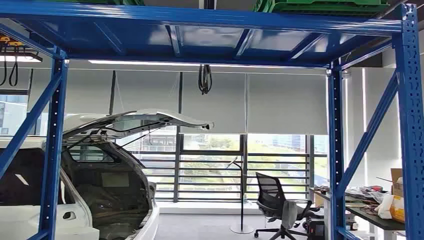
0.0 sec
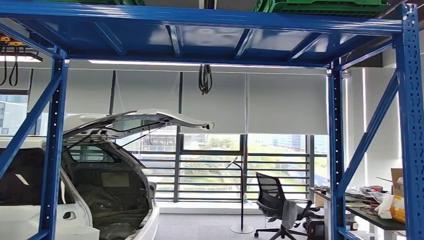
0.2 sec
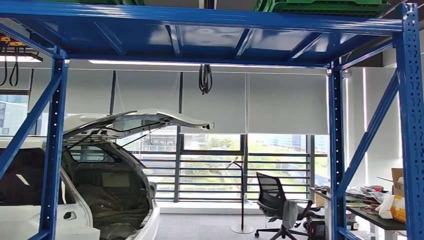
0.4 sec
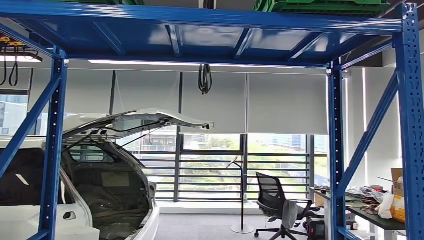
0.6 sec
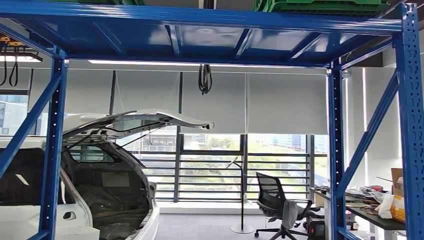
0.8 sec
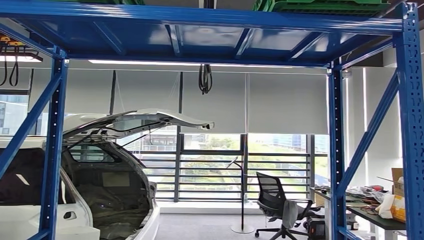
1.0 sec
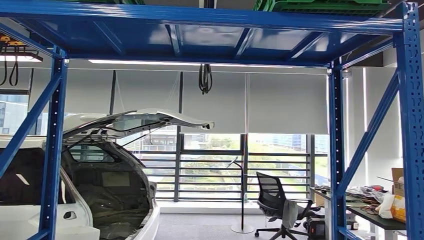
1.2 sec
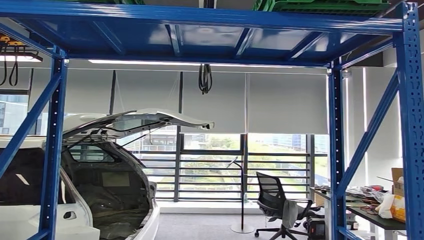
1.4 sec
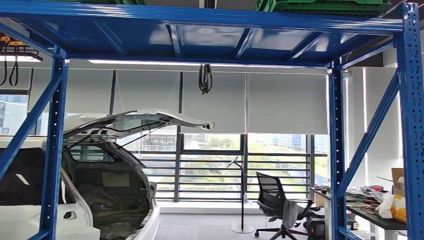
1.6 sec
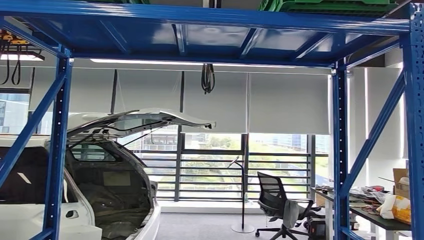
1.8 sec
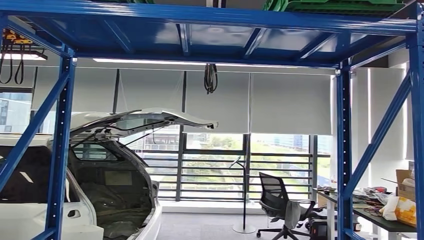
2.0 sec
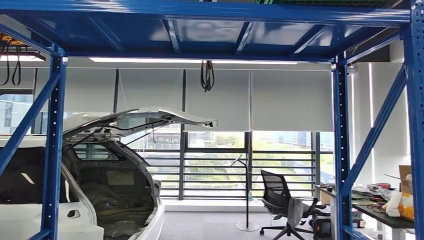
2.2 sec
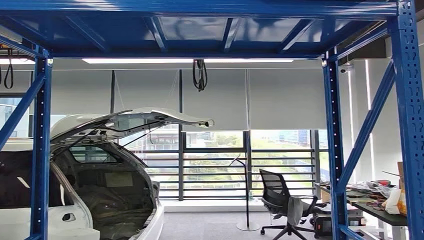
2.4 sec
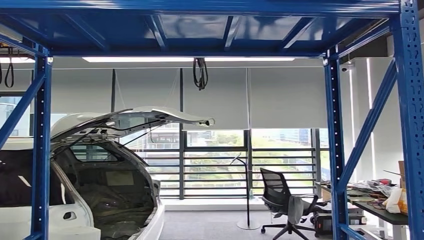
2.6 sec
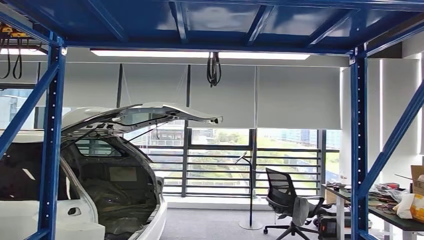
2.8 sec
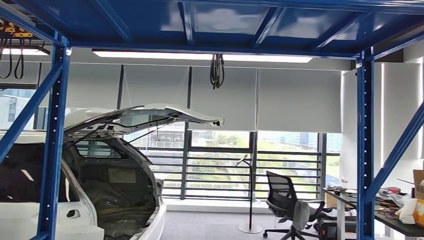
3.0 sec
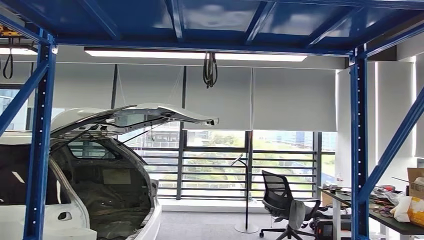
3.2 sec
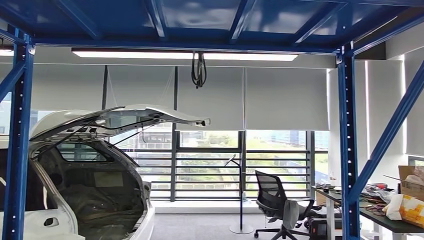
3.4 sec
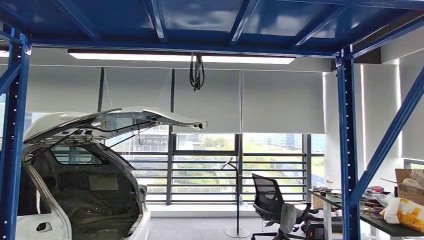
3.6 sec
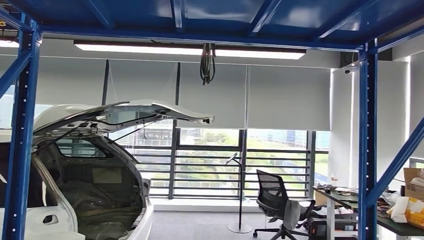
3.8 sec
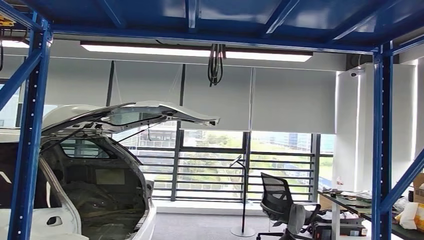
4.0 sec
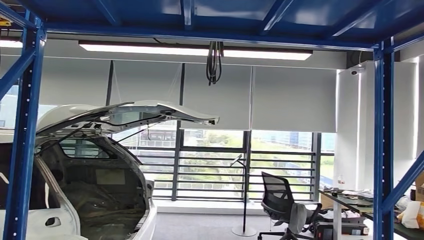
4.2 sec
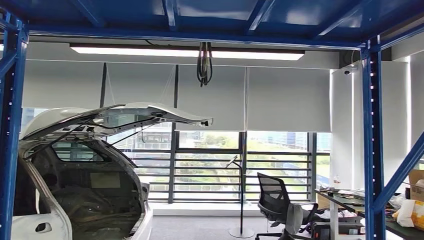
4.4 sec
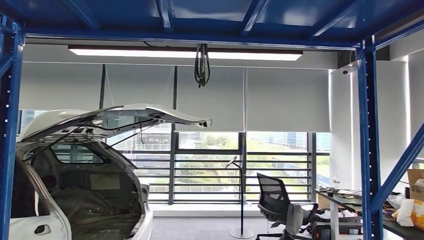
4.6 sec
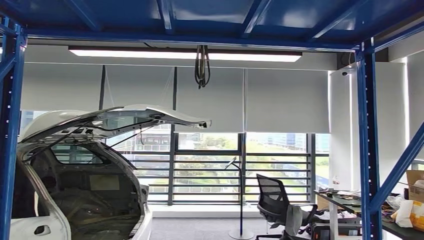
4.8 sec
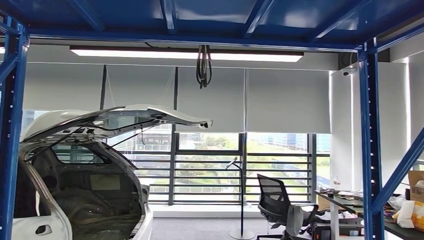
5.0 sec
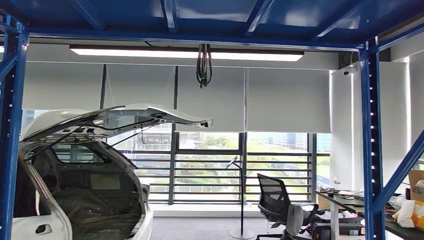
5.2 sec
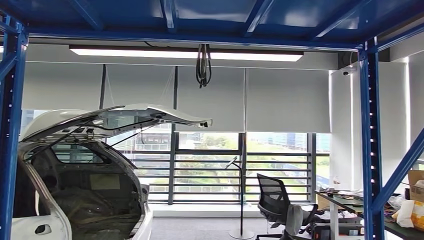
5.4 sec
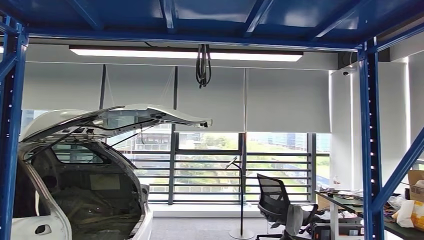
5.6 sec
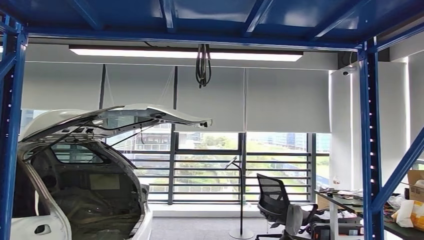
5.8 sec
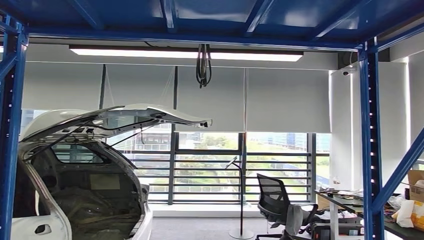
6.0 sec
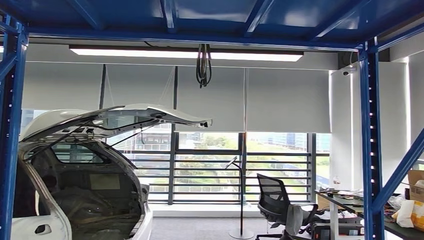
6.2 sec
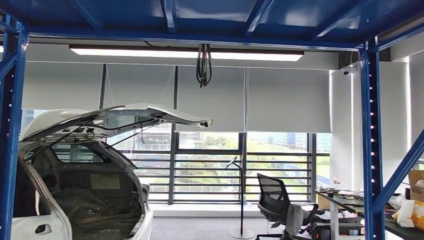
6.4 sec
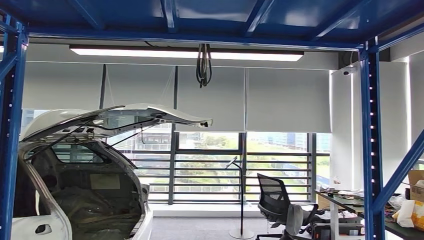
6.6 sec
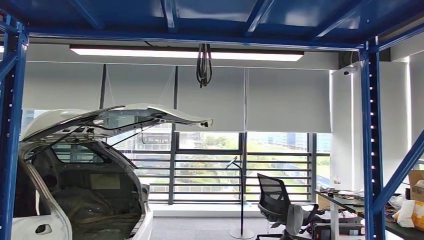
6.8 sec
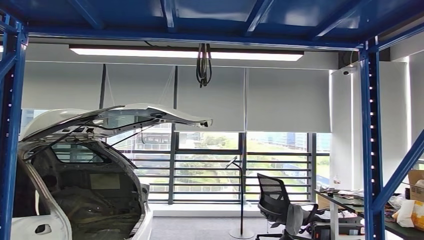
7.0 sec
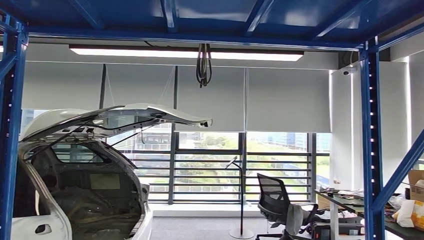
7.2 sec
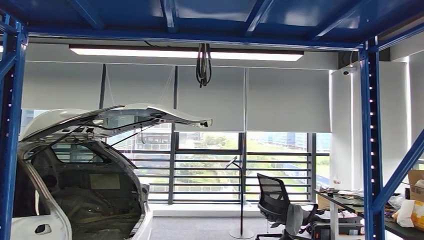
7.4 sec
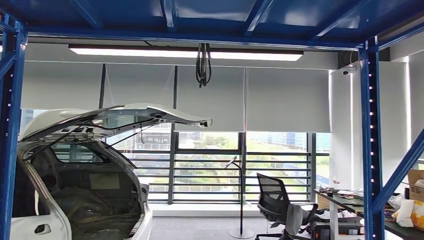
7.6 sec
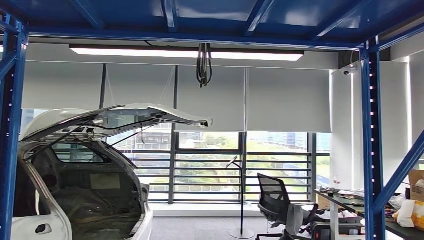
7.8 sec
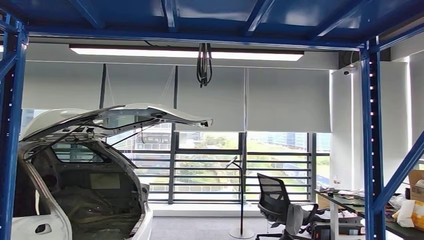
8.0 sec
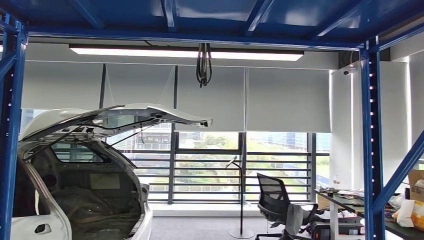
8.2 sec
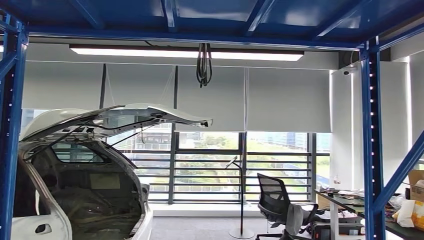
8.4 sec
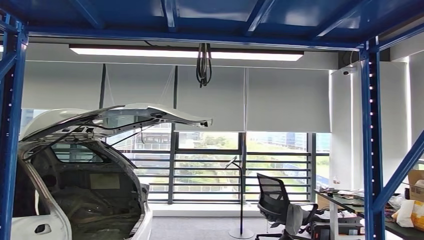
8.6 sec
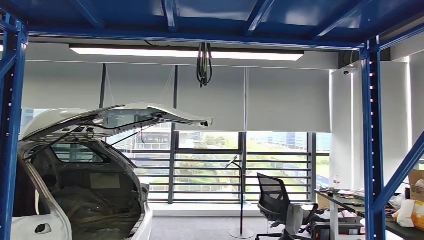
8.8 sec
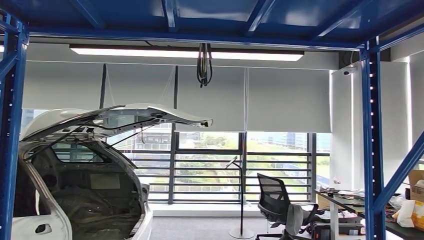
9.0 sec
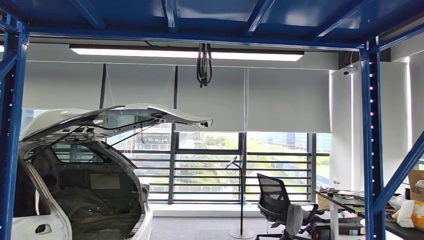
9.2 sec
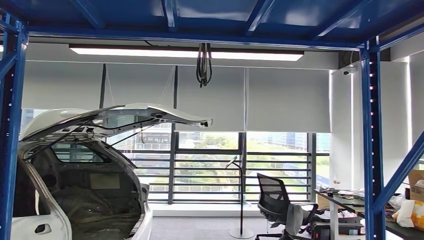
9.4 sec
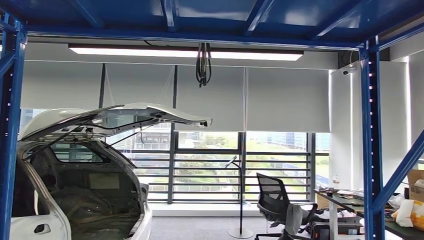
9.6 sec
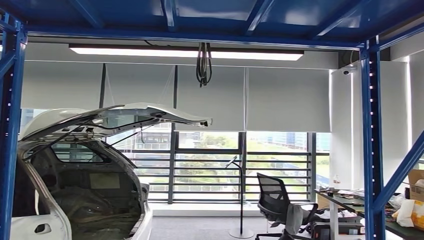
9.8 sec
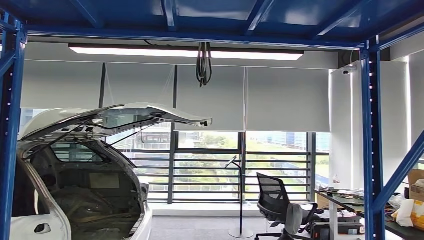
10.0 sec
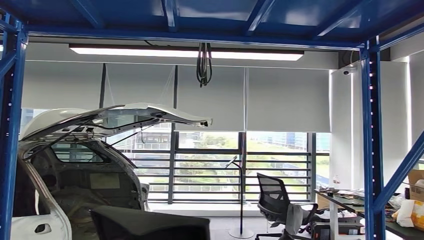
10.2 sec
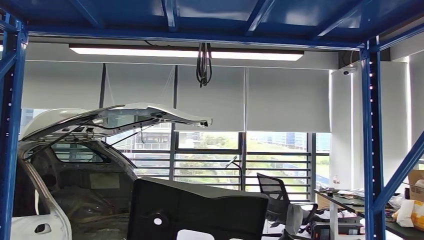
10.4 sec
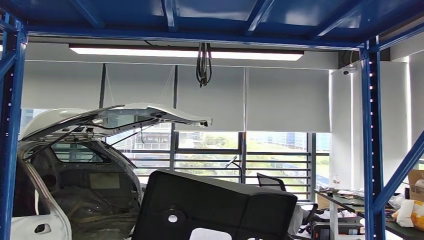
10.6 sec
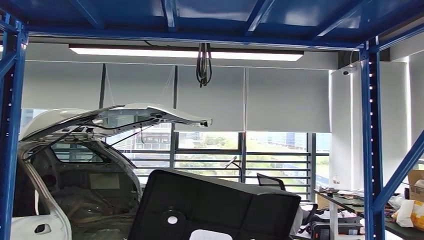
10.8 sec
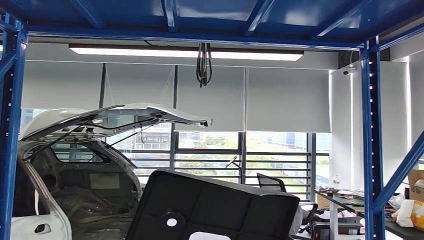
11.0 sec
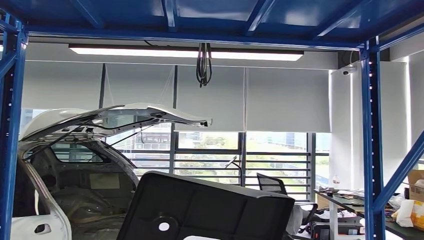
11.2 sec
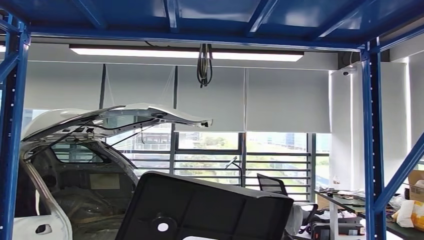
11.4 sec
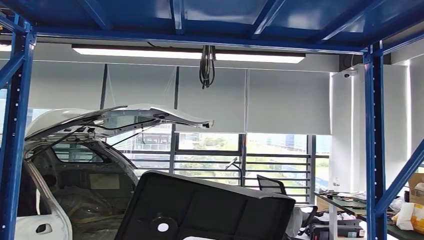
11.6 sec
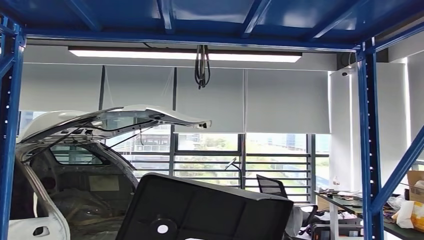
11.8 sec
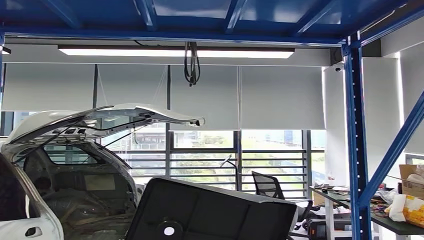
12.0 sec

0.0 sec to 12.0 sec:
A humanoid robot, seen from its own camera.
Step, 0.0 sec to 9.4 sec: Pick up the small parts from the shelf.
6.0 sec to 7.6 sec: The right hand heads forward and to the left, covering some 10 cm.
7.6 sec to 9.0 sec: The right hand moves to the left, approximately 10 cm.
9.0 sec to 10.4 sec: The right hand goes some 15 cm upward and backward.

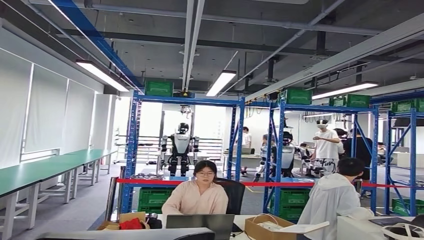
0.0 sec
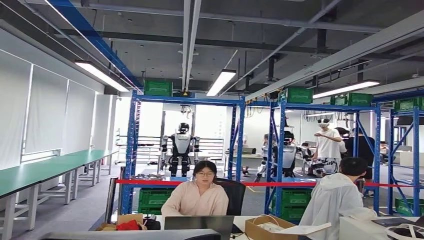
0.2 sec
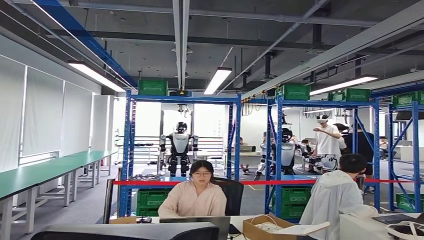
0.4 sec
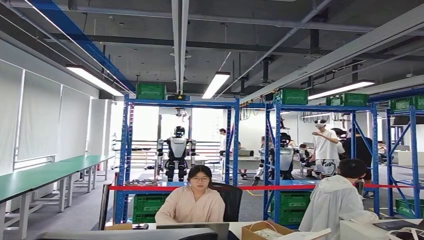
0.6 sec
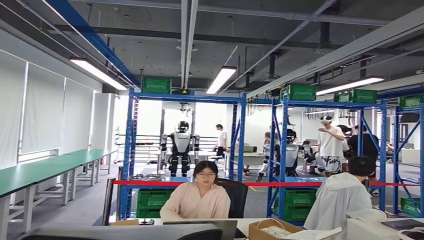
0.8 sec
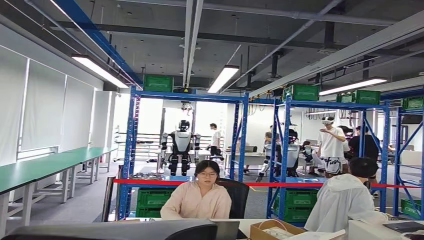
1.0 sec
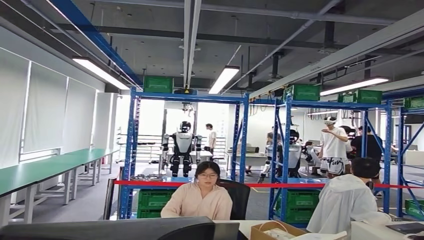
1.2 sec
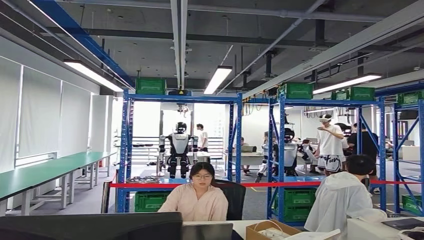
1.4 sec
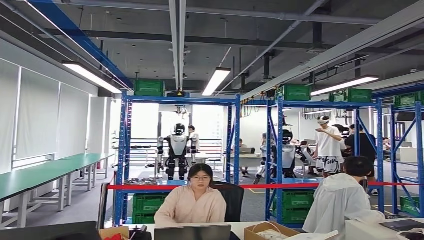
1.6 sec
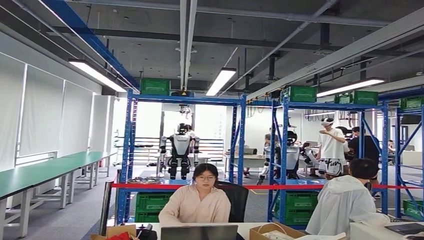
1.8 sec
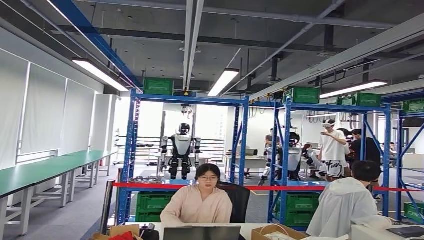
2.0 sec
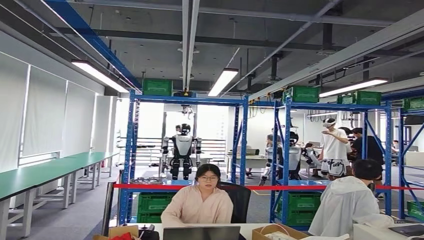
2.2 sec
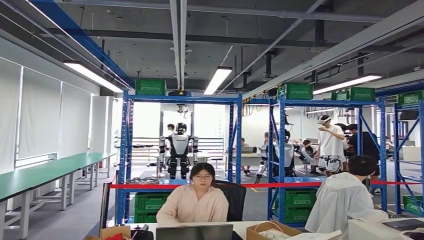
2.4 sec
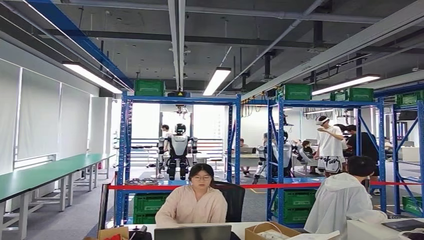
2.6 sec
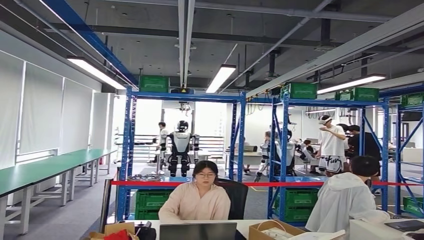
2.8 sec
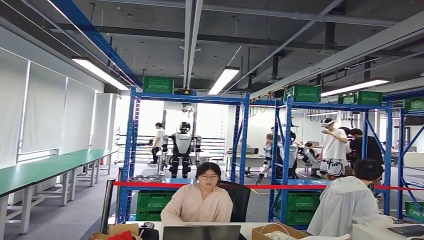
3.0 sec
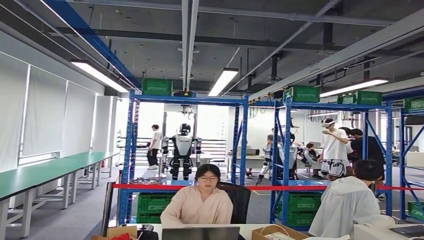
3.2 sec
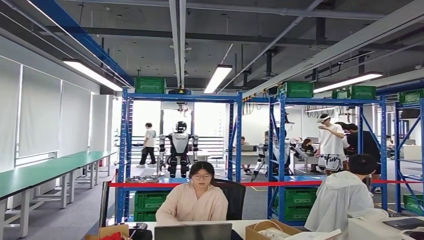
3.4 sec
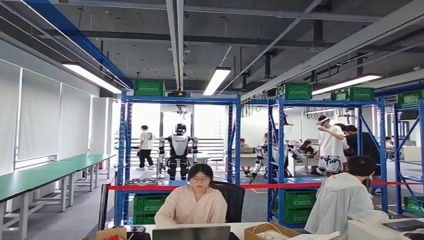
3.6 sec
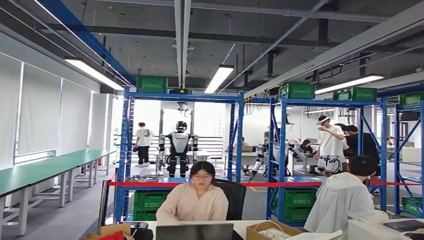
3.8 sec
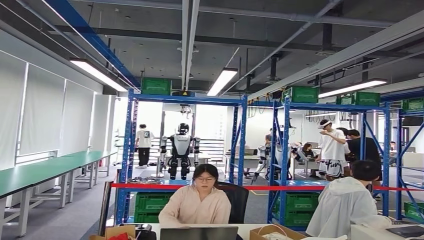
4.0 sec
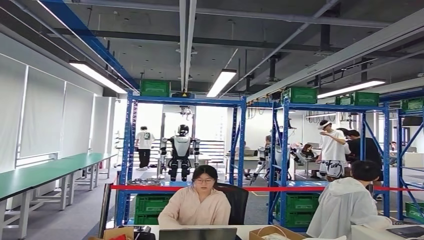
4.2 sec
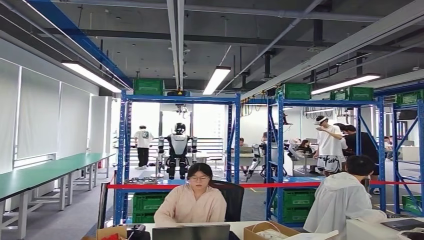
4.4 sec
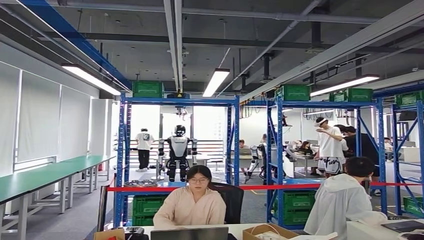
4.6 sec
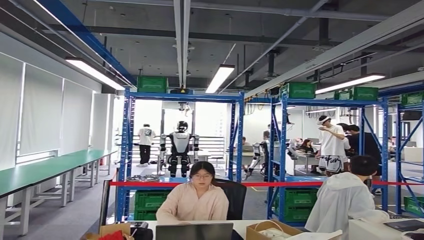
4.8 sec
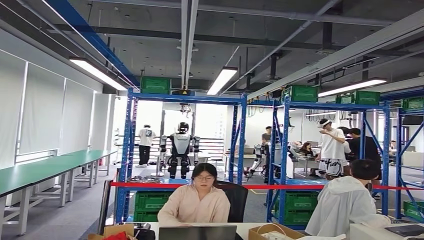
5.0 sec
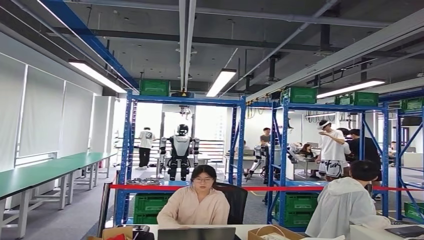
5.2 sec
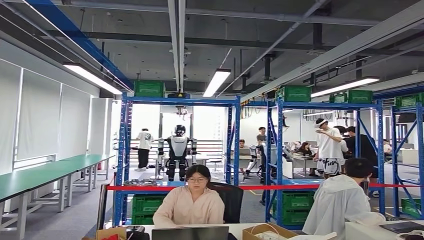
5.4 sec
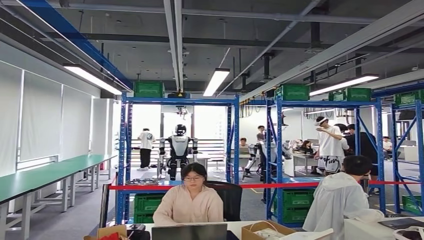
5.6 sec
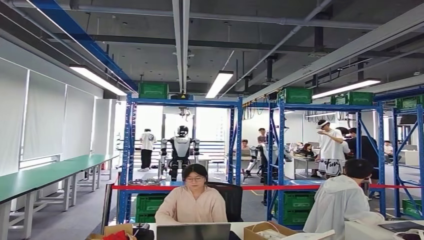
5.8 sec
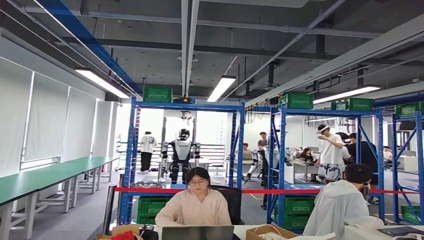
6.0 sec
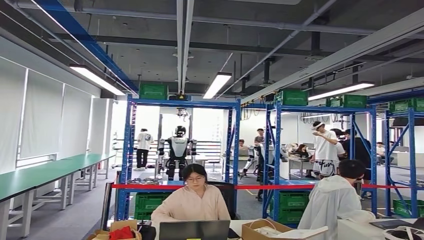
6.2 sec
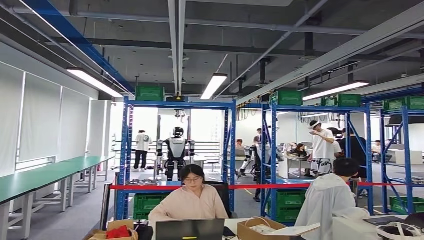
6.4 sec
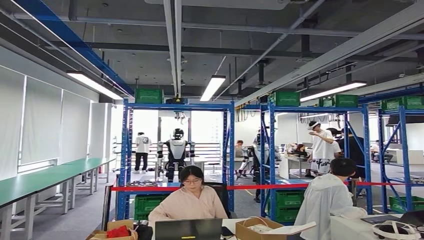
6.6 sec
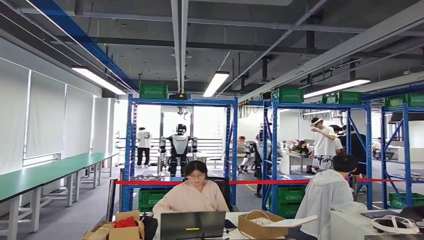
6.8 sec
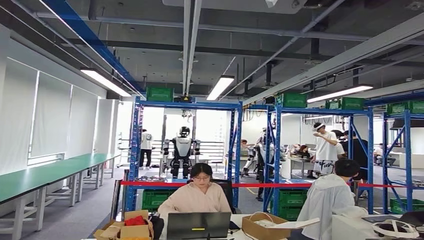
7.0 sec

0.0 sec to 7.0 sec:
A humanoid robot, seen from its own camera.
Step, 0.0 sec to 2.6 sec: Move the small parts to the workbench.
Step, 3.0 sec to 4.8 sec: Insert the small parts into the corresponding slots on the workbench.
